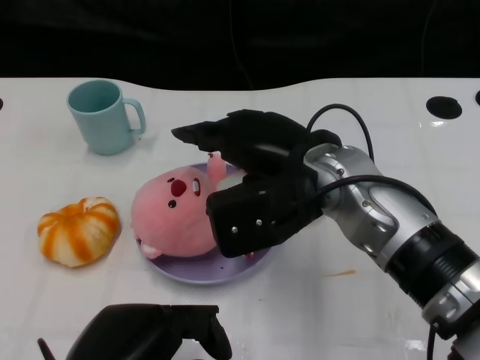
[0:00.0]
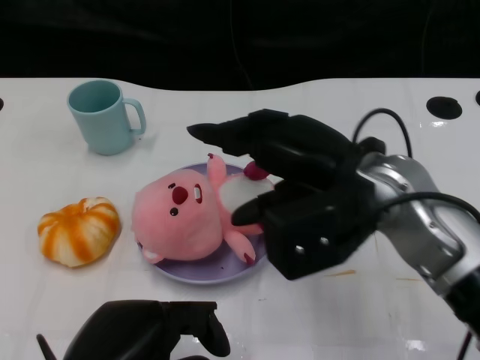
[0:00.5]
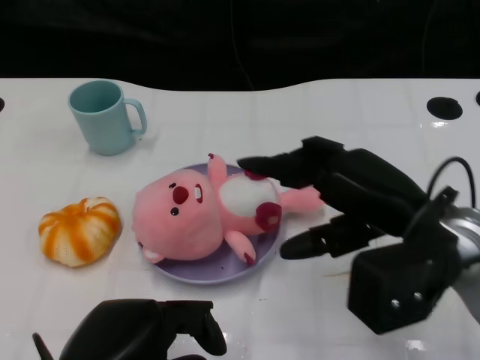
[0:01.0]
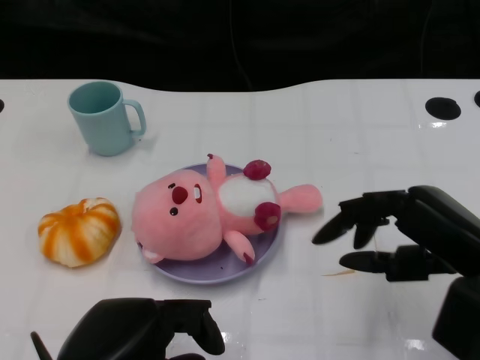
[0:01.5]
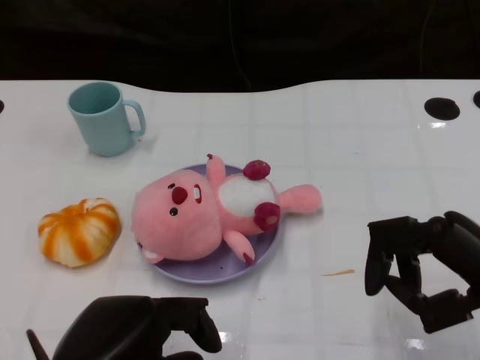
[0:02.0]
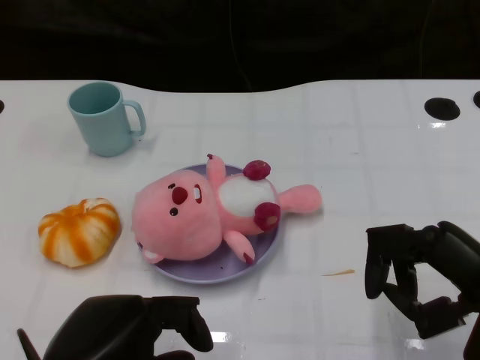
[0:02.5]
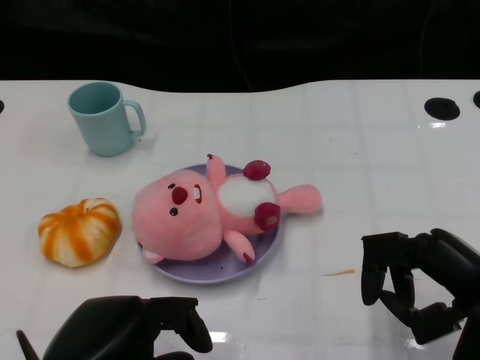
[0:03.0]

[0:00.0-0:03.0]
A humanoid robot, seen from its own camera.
Task of the whole recording: Pick up the doll on the other side of the plate and place it into the plate.
0:00.0 to 0:01.5: The right hand goes some 20 cm to the right and backward.
0:01.5 to 0:03.0: There are only small adjustments of the hands.

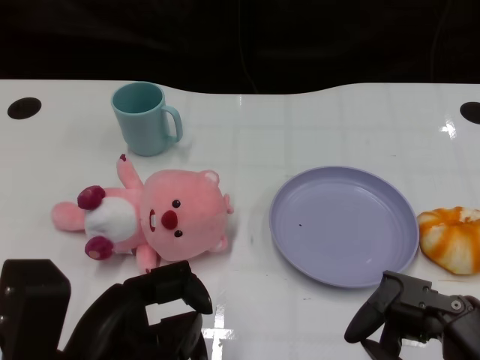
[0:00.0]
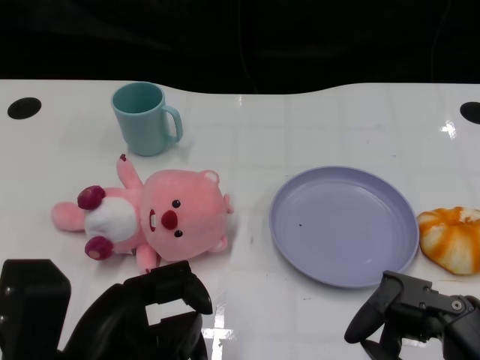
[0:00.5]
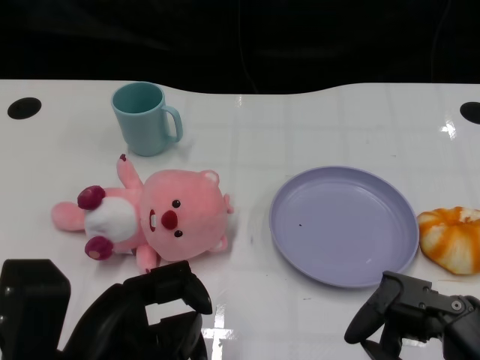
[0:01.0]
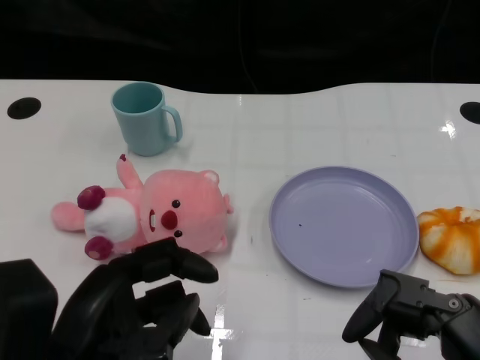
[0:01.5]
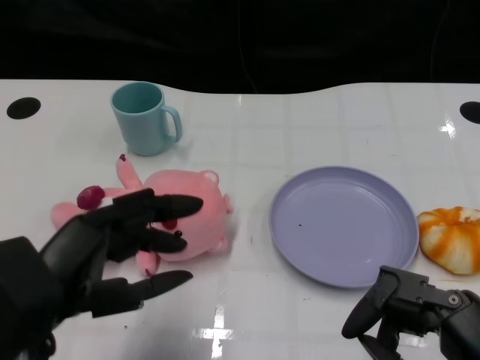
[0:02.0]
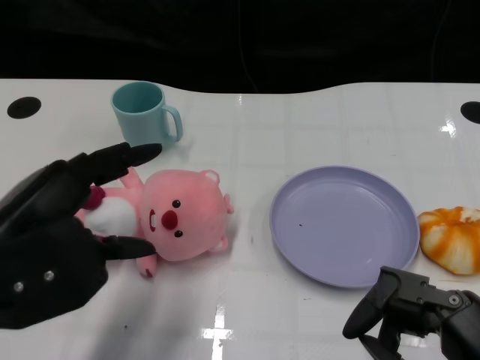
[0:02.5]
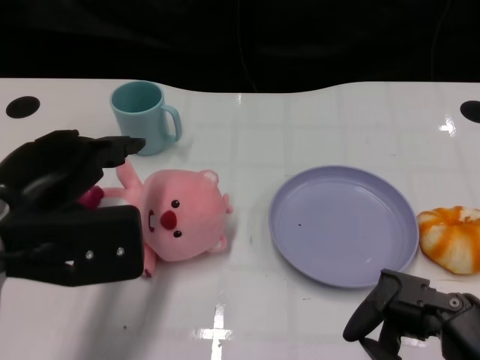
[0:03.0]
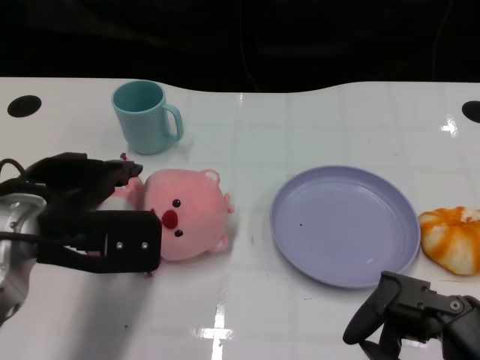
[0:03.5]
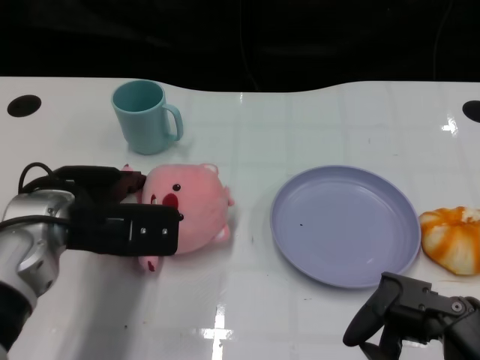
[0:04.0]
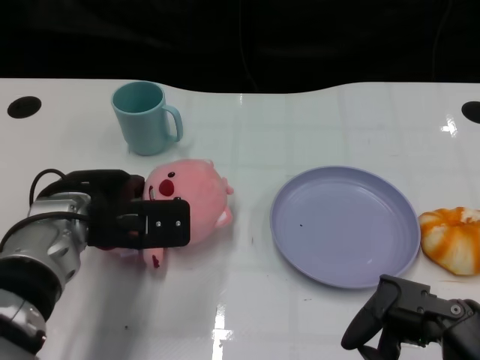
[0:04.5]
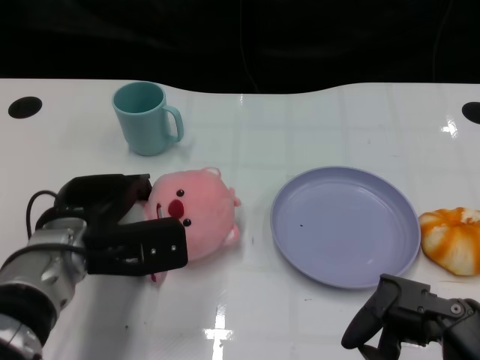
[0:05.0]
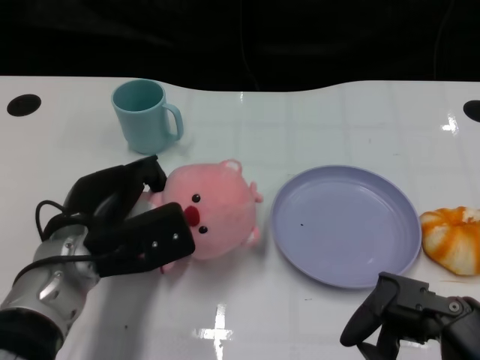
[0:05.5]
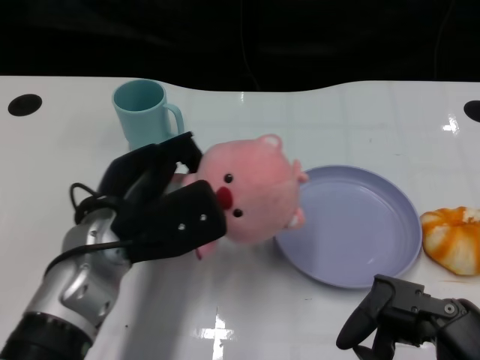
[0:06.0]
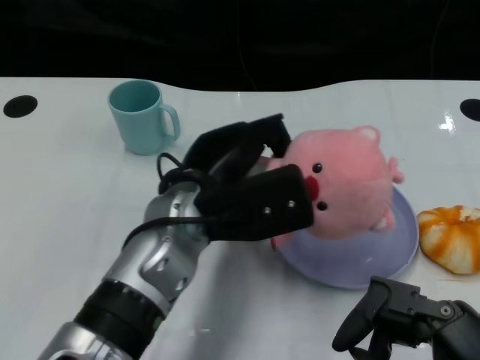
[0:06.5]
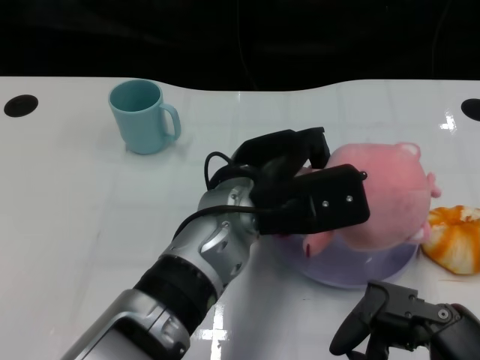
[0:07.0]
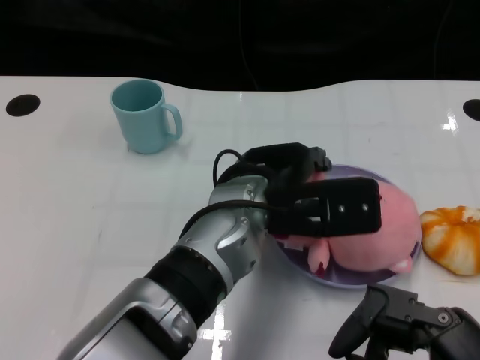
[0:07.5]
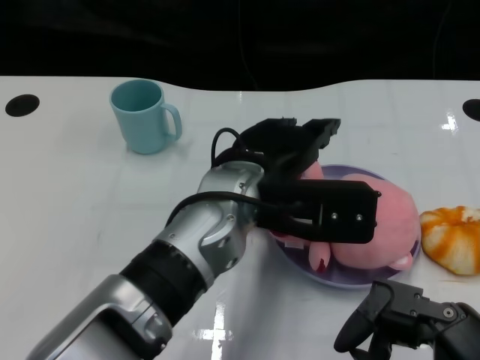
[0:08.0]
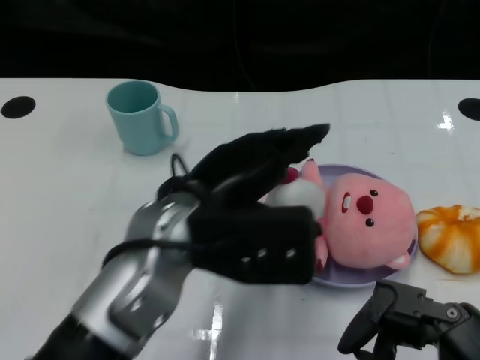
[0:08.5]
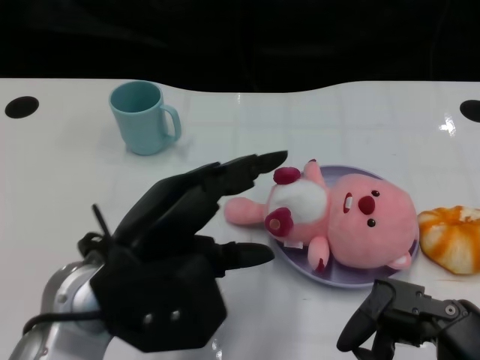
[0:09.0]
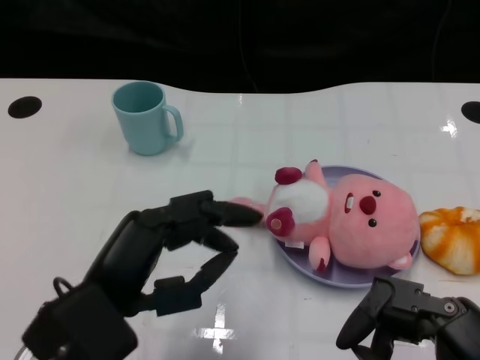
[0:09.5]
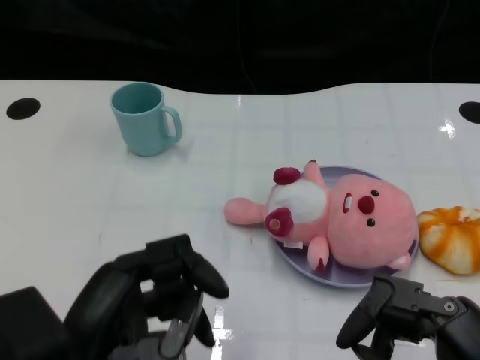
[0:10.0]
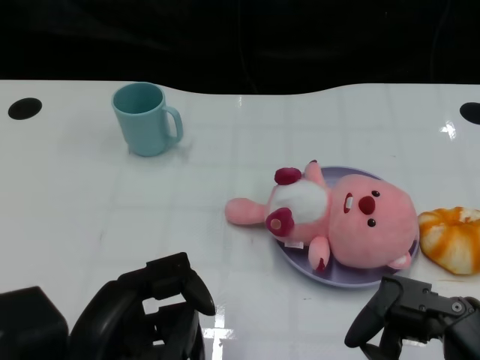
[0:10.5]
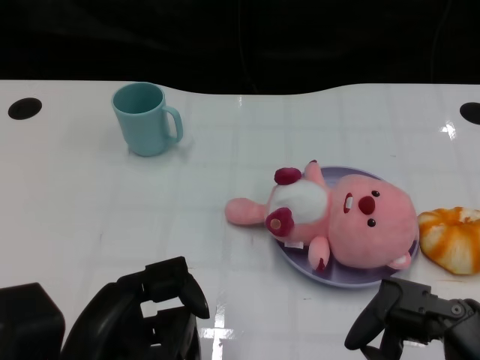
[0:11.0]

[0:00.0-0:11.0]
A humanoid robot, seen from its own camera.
Task of the whole recording: Pick up the doll on one side of the plate and place it into the plate.
Step, 0:01.5 to 0:05.0: Grasp the pink doll with the left gripper.
Step, 0:05.5 to 0:07.5: Place the pink doll into the plate with the left gripper.
0:02.0 to 0:03.5: The left hand is displaced forward by some 10 cm.
0:03.5 to 0:05.5: The left hand moves downward, about 5 cm.
0:05.5 to 0:07.5: The left hand goes approximately 15 cm to the right.
0:07.5 to 0:09.0: The left hand is displaced to the left and backward by roughly 15 cm.
0:09.0 to 0:11.0: The left hand goes approximately 10 cm backward and downward.
